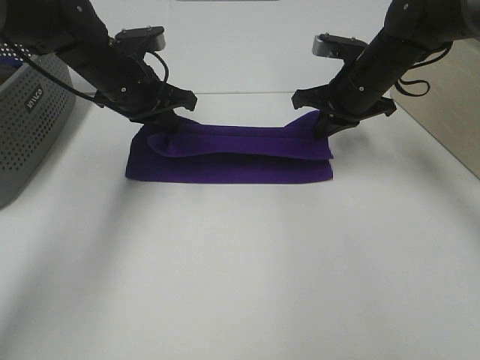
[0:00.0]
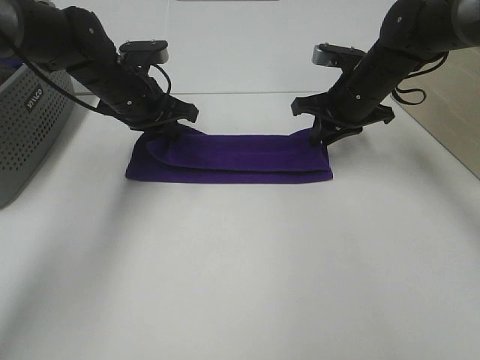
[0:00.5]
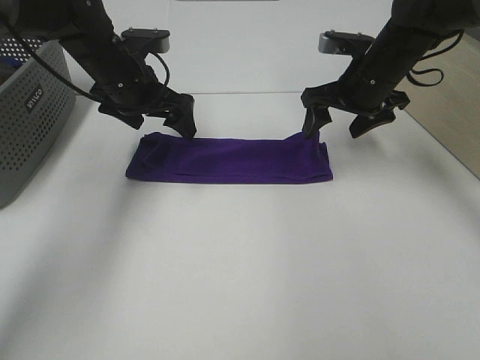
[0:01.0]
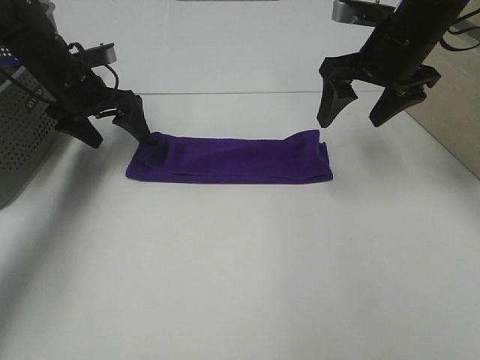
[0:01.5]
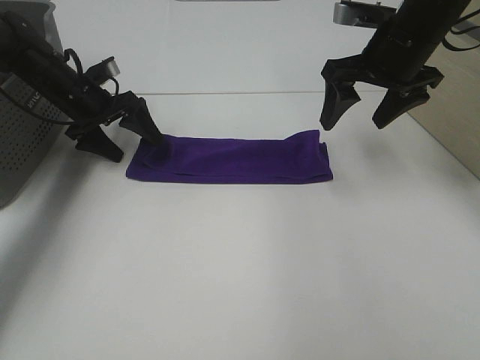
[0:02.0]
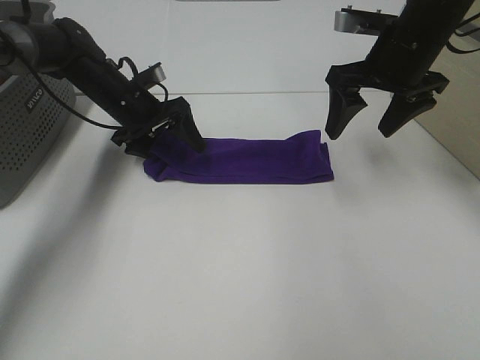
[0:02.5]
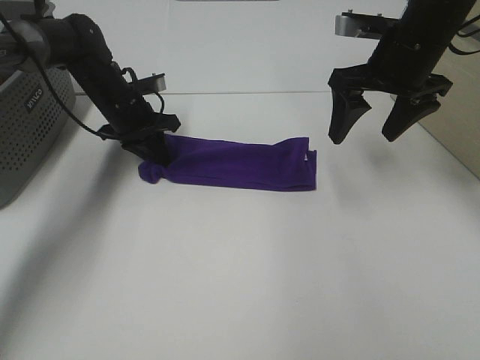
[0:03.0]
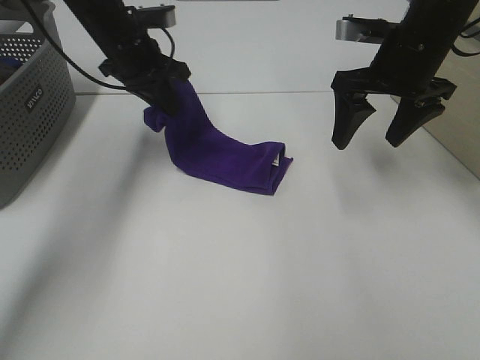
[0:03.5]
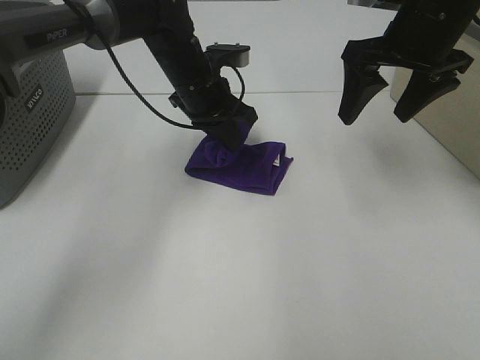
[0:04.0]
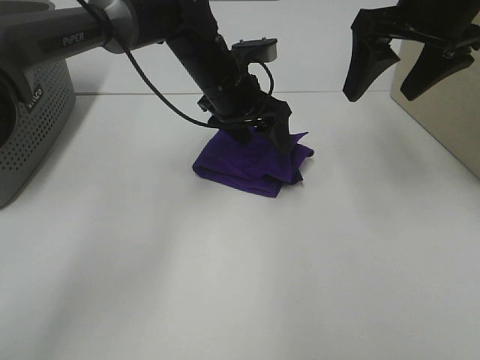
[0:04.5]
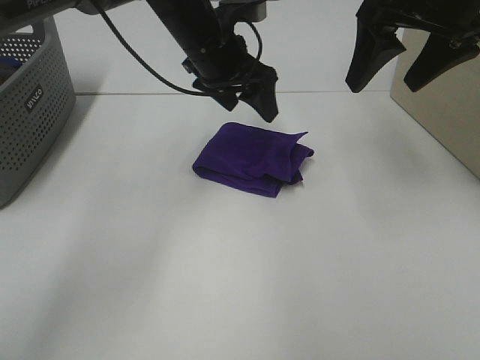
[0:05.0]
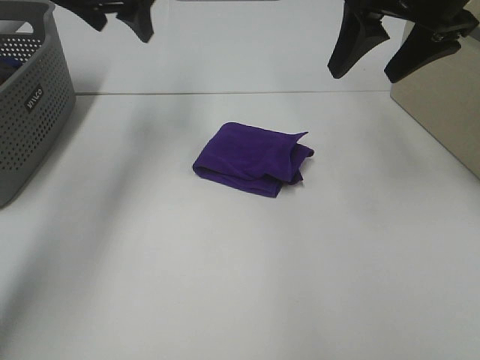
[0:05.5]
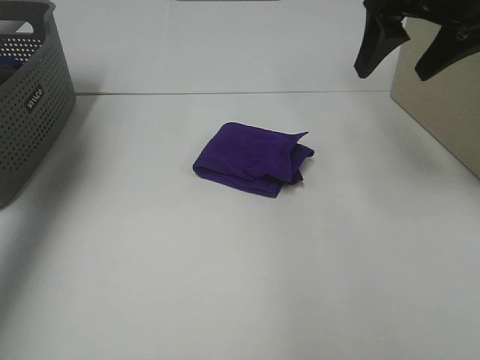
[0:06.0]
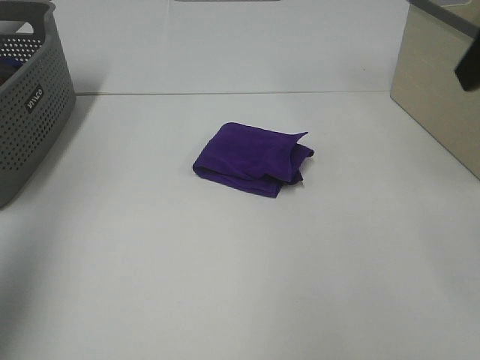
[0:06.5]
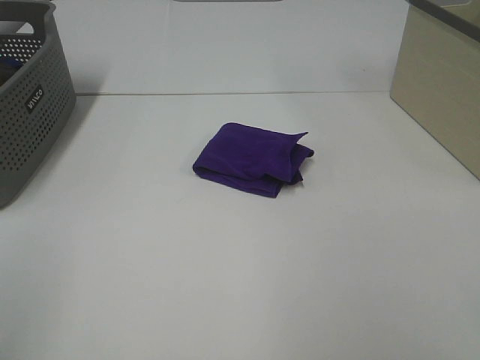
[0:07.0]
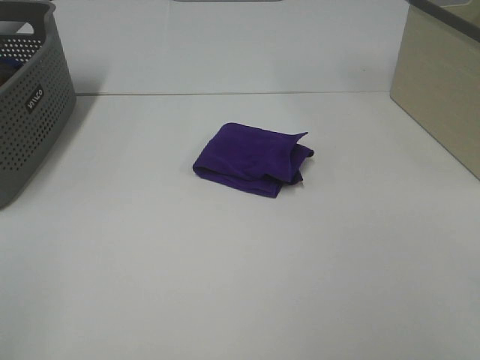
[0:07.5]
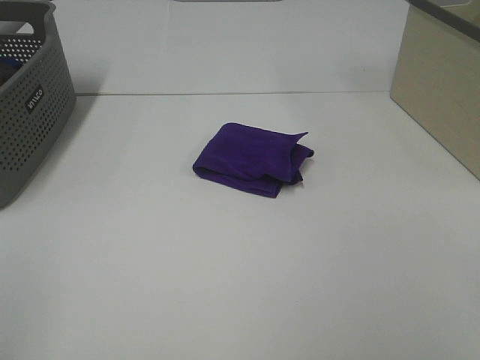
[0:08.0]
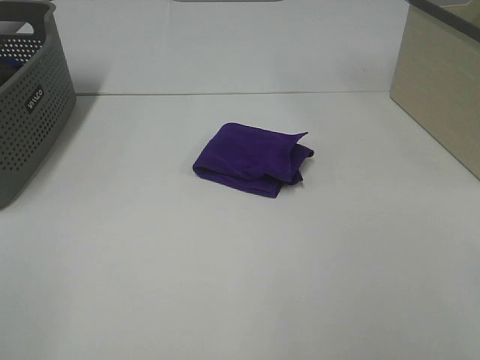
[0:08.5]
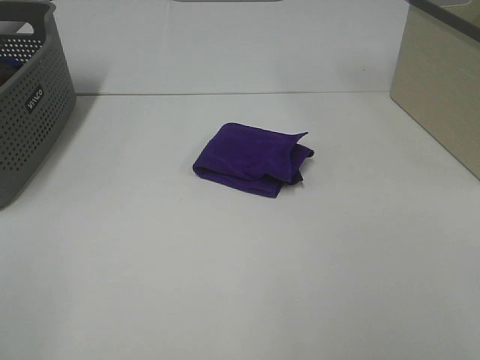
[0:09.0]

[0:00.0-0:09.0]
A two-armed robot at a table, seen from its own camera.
Task of the whole recording: Fold towels.
Step, 0:01.0 to 0:04.0: Left hand: fold the purple towel from left to right.
0:00.0 to 0:02.0: The left gripper travels to the left, downward and forward by some 10 cm, and opens up. The right gripper shifts approximately 10 cm upward, and opens.
0:02.0 to 0:04.5: The right gripper moves upward, about 5 cm, while the left gripper heads to the right, covering roughly 20 cm, and closes, then opens again.
0:04.5 to 0:07.0: The right gripper moves backward, approximately 30 cm. The left gripper heads backward and to the left, covering roughly 50 cm.

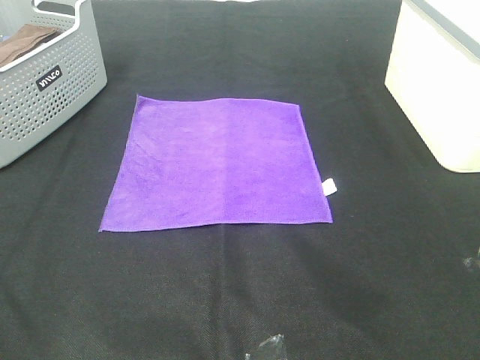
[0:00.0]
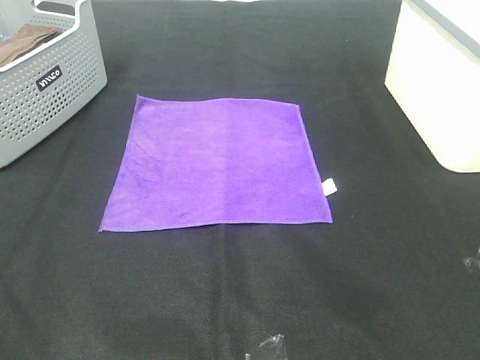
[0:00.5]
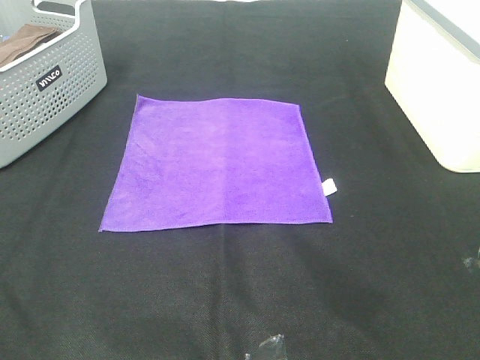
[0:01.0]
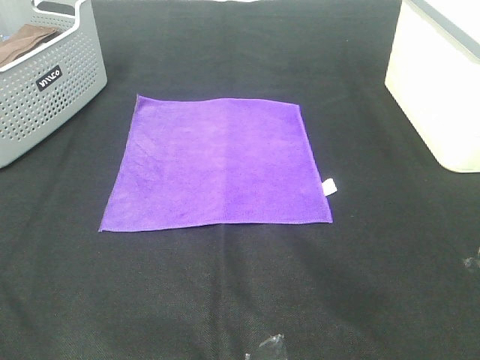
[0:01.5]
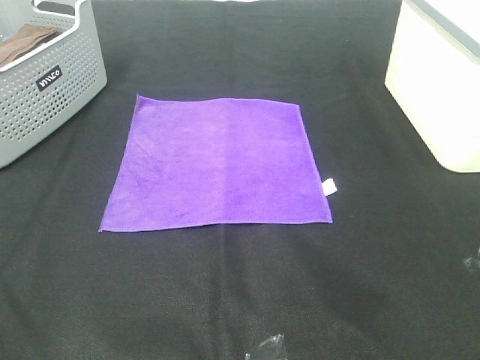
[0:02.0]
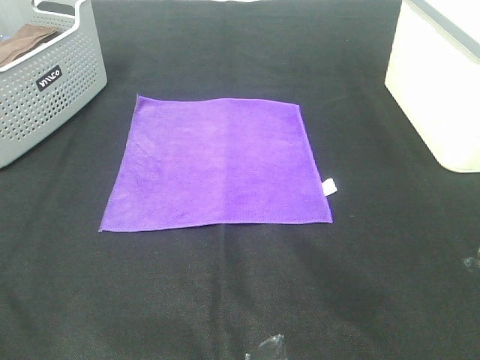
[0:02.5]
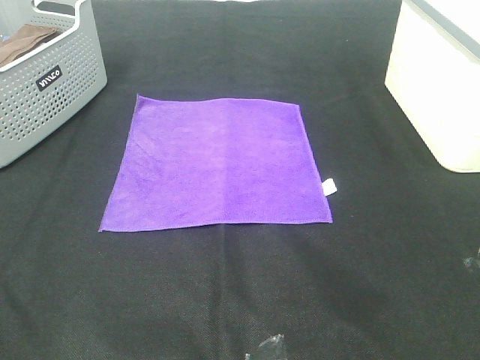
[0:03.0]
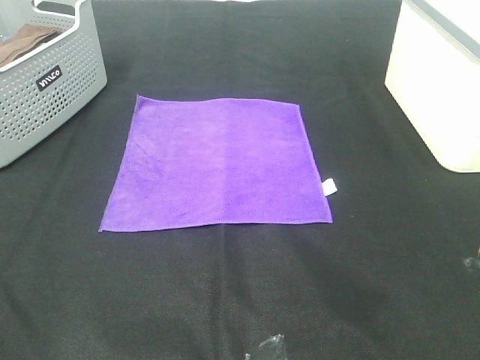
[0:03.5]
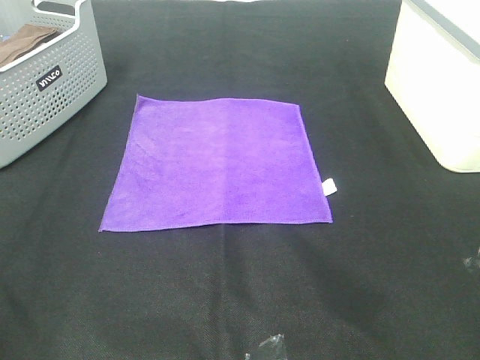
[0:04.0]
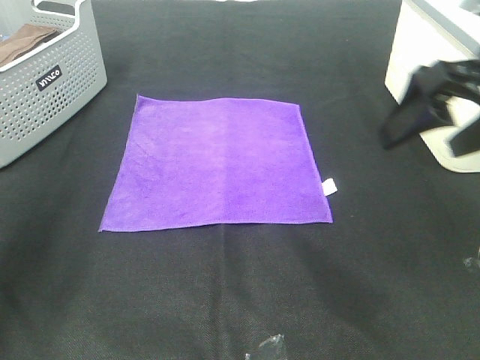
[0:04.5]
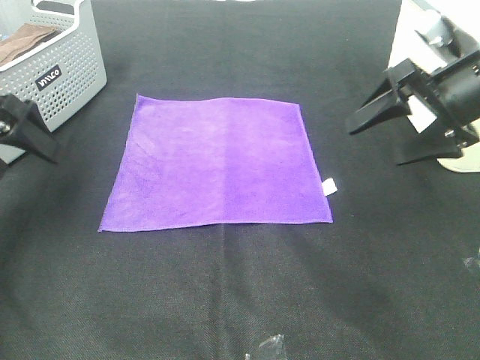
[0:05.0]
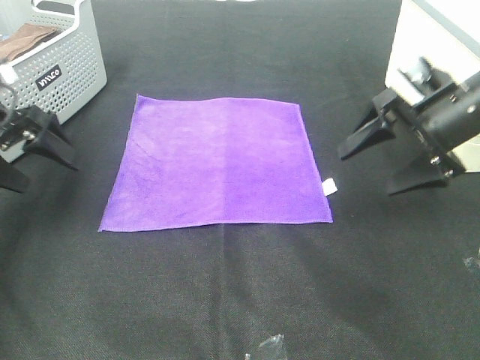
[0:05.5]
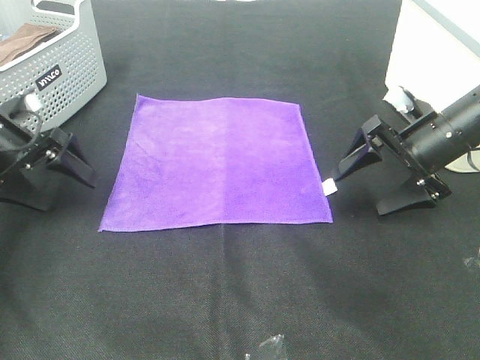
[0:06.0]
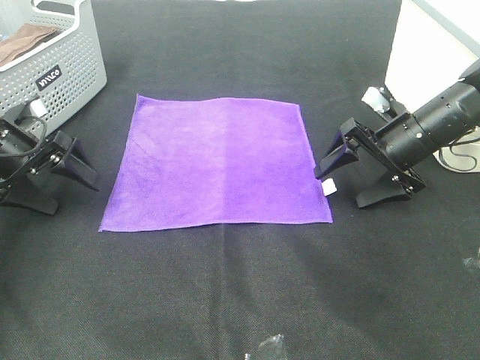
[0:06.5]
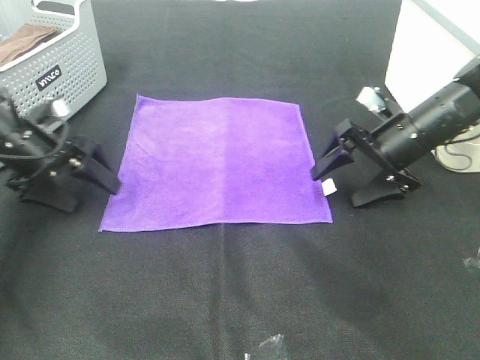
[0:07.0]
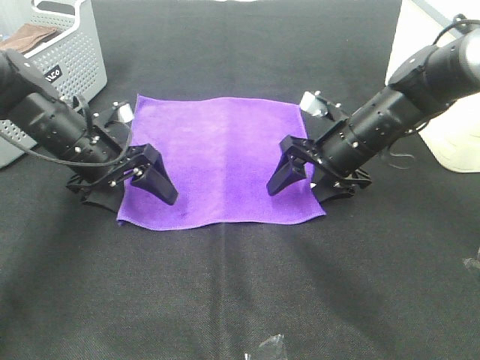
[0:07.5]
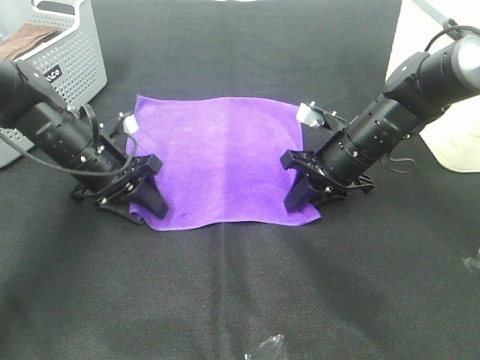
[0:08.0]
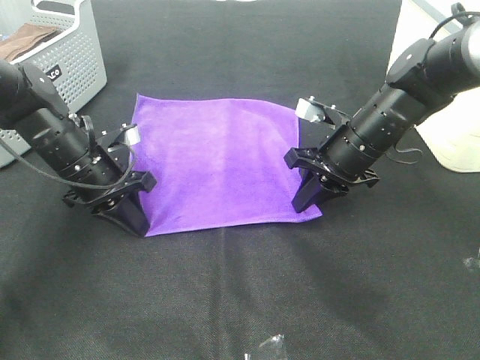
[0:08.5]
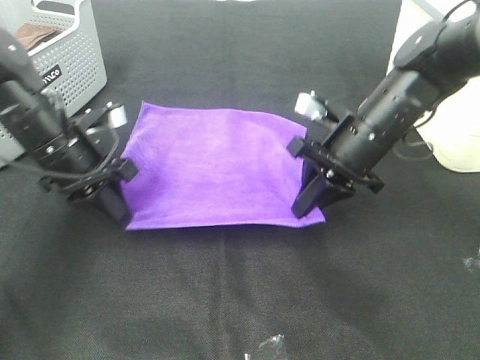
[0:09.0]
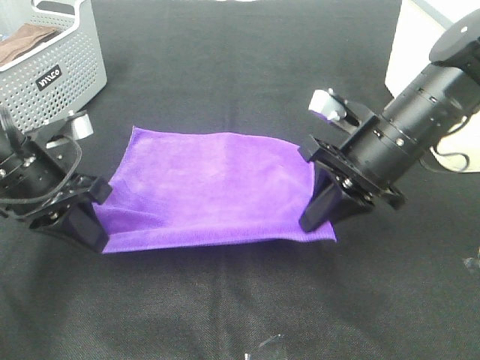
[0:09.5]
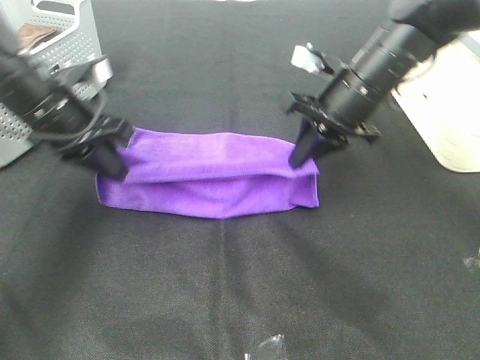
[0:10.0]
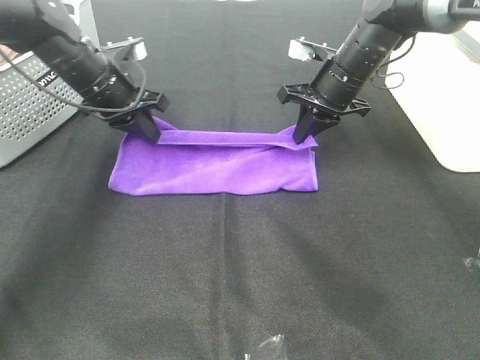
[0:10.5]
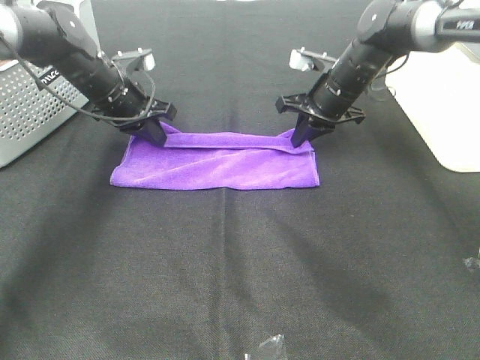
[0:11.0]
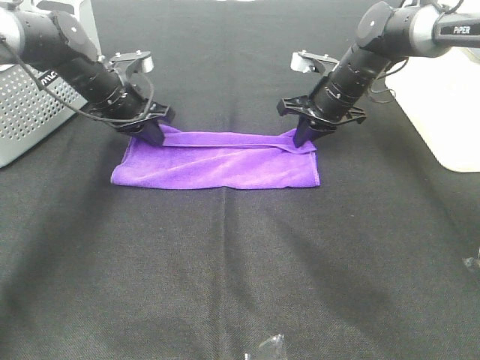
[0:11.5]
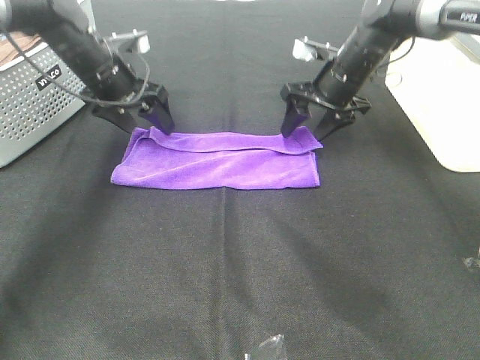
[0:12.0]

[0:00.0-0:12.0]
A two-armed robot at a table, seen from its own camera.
Task of the whole recording: Fold towels.
Step, 0:00.0 to 0:08.0: Left hand: grab the bottom left corner of purple towel.
Step, 0:00.0 to 0:08.0: Right hand: grab the bottom right corner of purple towel.
Step, 0:08.5 to 0:11.0: Left hand: fold the purple towel up.
Step, 0:08.5 to 0:11.0: Right hand: fold the purple towel up.
0:00.0 to 0:02.0: The two grippers keep their place.
0:04.0 to 0:06.0: Both grippers move forward and downward, some 35 cm.
0:06.0 to 0:08.0: The left gripper goes roughly 10 cm to the right, and closes, while the right gripper heads to the left, covering some 10 cm, and closes its fingers.
0:08.0 to 0:10.0: Both grippers move upward, about 10 cm. The left gripper moves about 10 cm backward and comes back, and closes; the right gripper travels backward and back again, approximately 10 cm each way.
0:10.0 to 0:12.0: The two grippers go approximately 10 cm forward. The right gripper opens up. The left gripper opens its fingers.

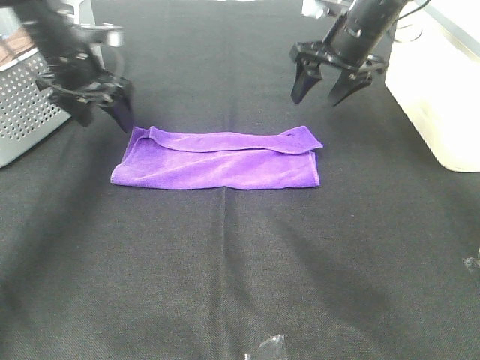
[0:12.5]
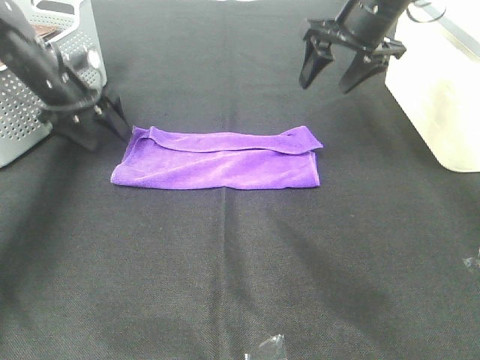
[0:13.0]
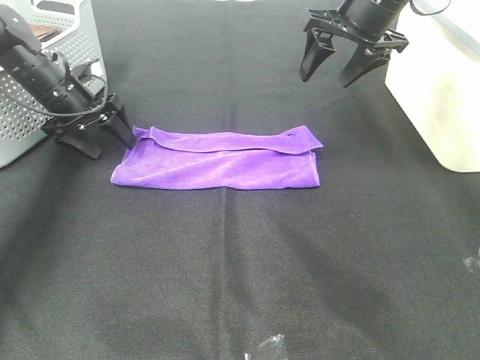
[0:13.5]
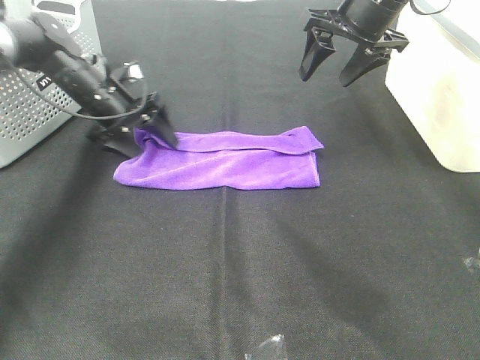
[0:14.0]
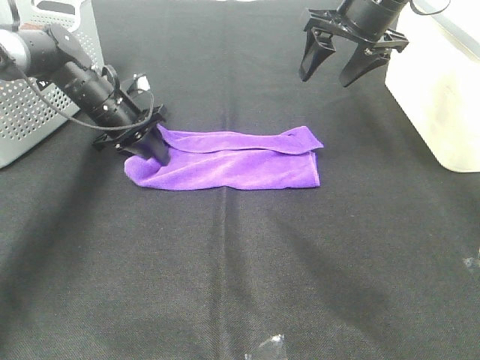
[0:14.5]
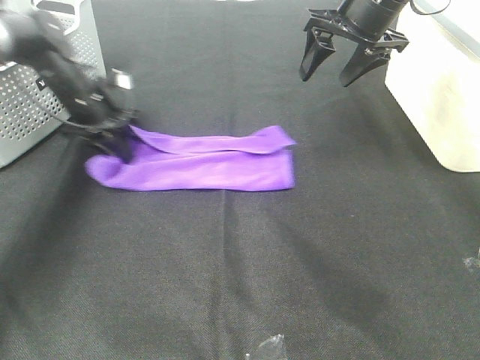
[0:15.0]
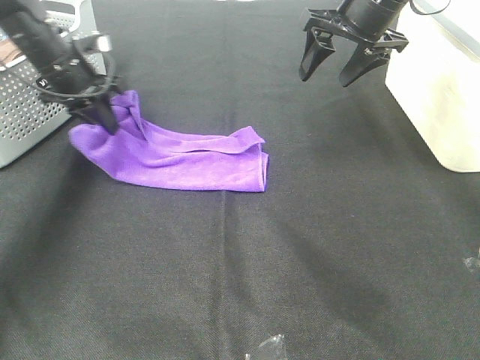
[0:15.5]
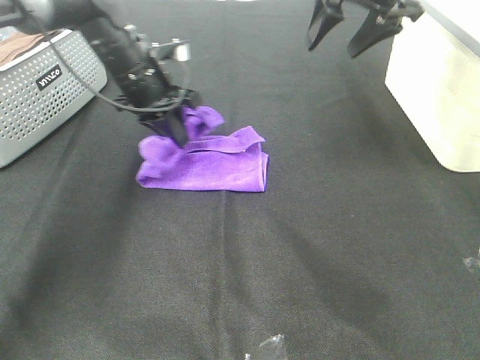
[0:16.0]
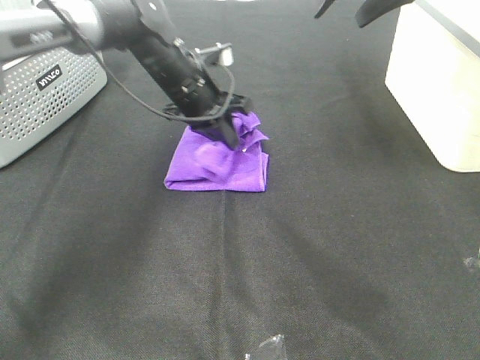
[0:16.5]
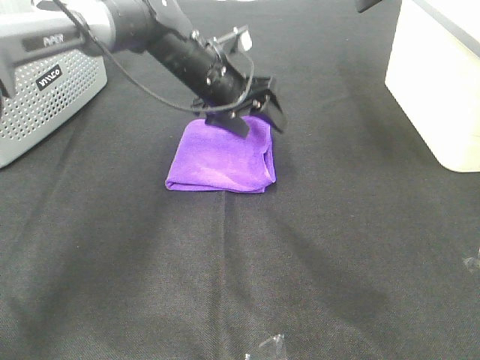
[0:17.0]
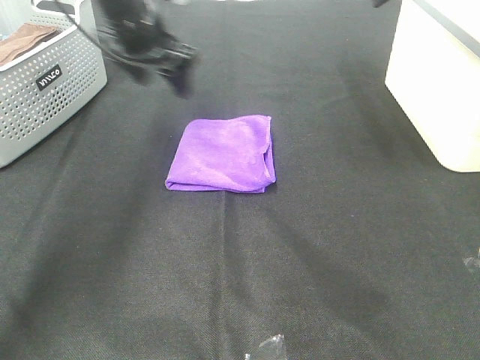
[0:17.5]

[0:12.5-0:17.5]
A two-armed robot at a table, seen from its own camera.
Task of the whole recording: Fold towels.
Step, 0:12.5 to 0:16.5: Left hand: fold the purple towel from left to right.
0:12.5 to 0:15.0: The right gripper changes place by approximately 5 cm. Meanwhile the left gripper travels downward by approximately 5 cm, and closes up.
0:15.0 to 0:17.5: The left gripper goes some 15 cm upward and to the right, and opens, while the right gripper goes roughly 10 cm upward and backward.
